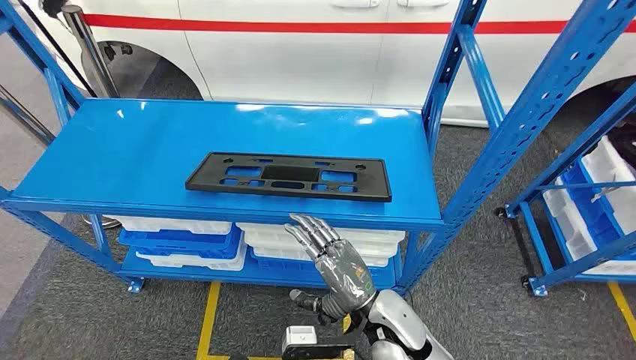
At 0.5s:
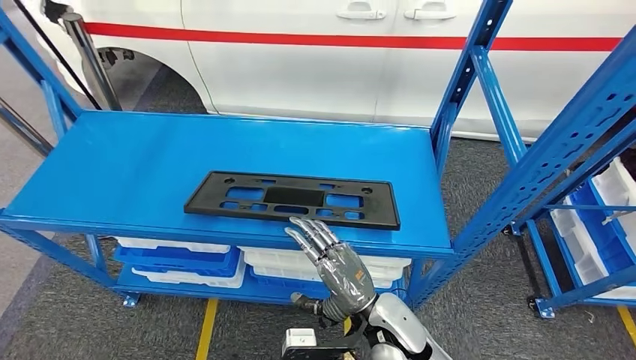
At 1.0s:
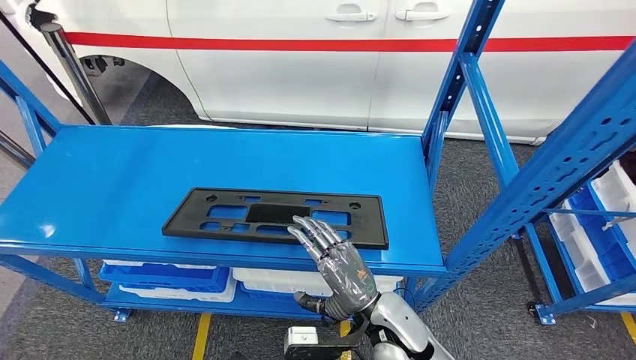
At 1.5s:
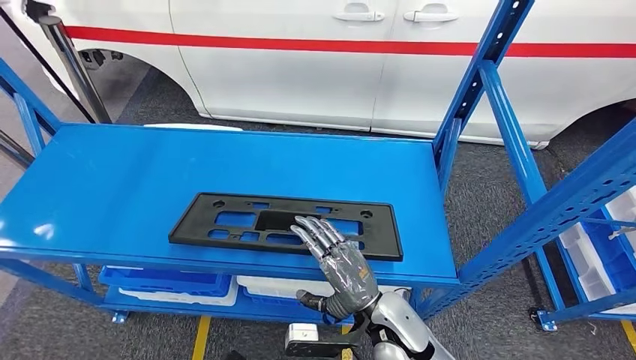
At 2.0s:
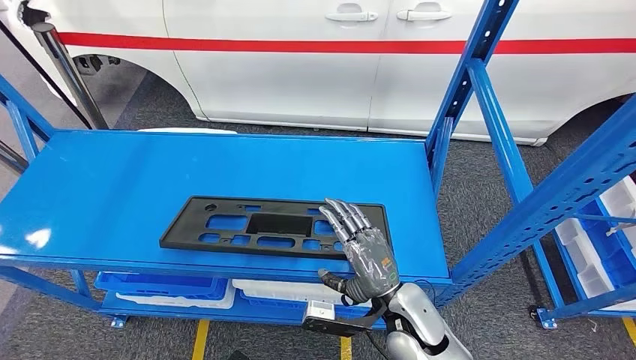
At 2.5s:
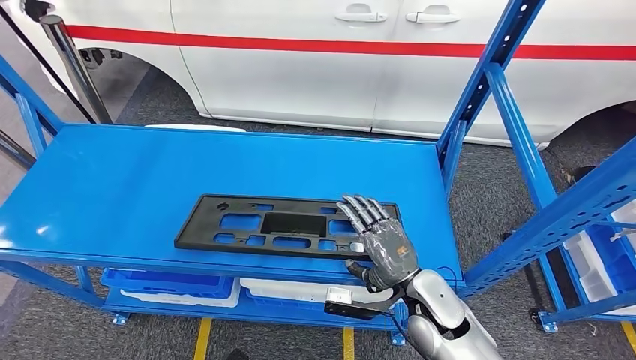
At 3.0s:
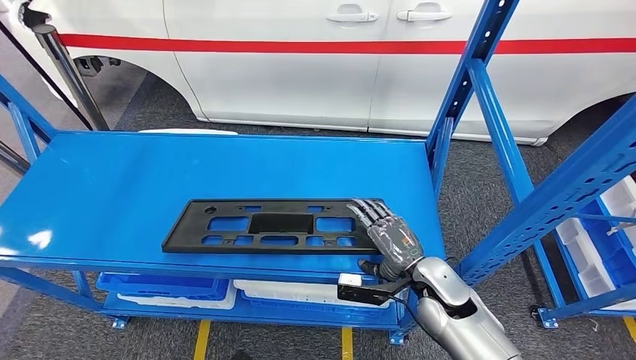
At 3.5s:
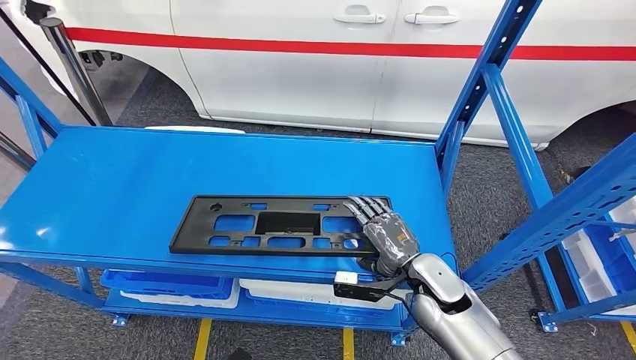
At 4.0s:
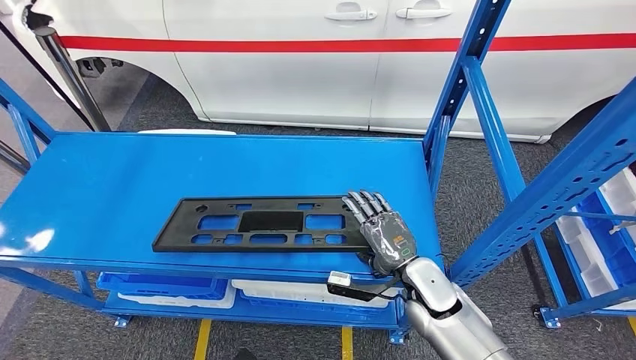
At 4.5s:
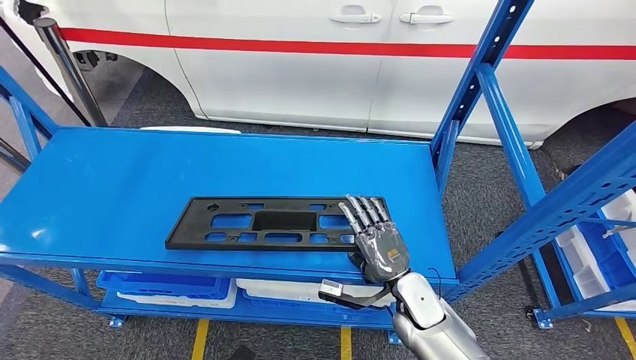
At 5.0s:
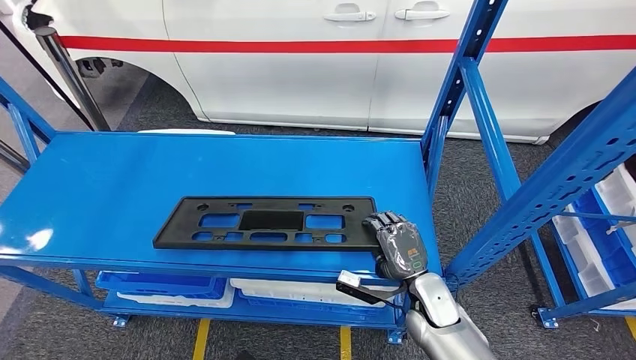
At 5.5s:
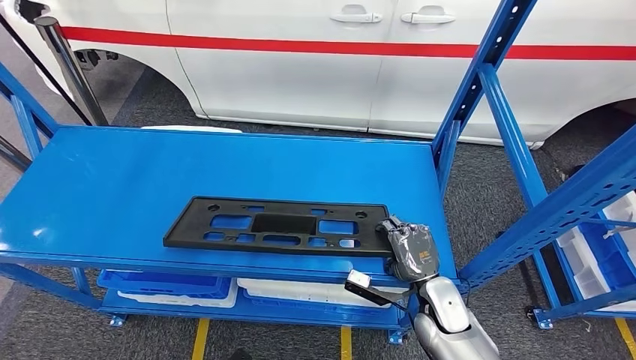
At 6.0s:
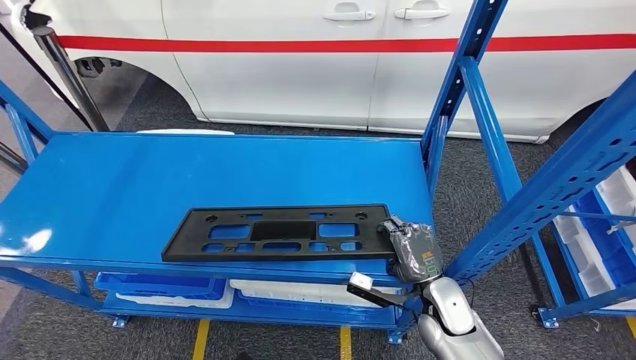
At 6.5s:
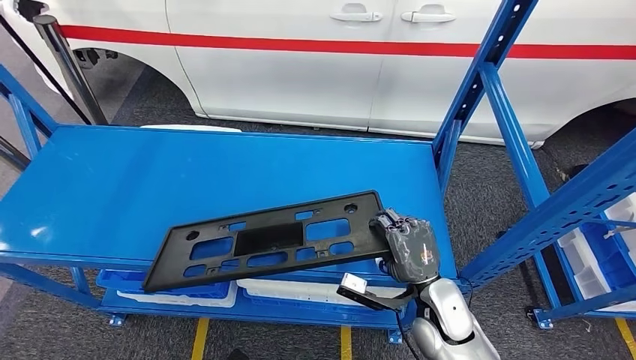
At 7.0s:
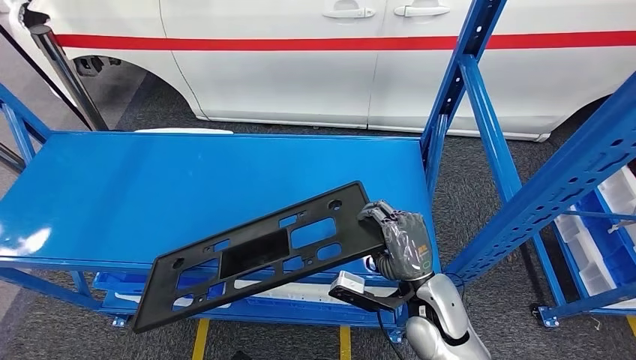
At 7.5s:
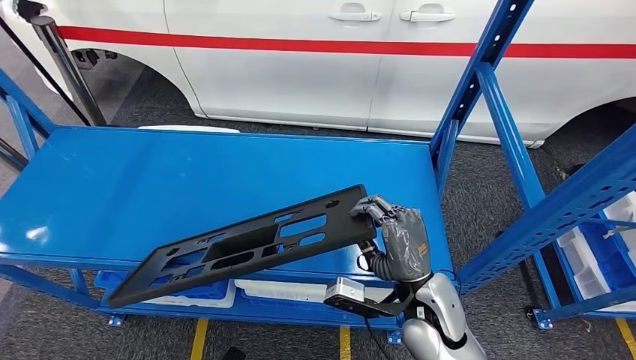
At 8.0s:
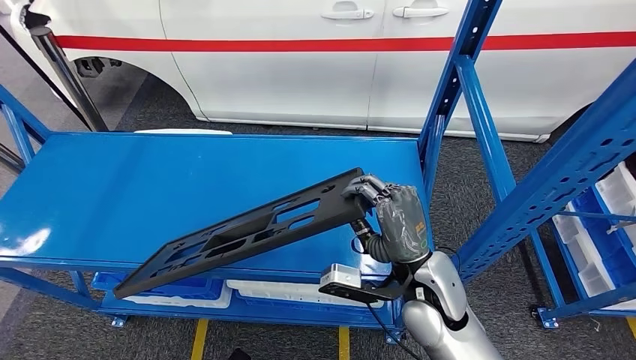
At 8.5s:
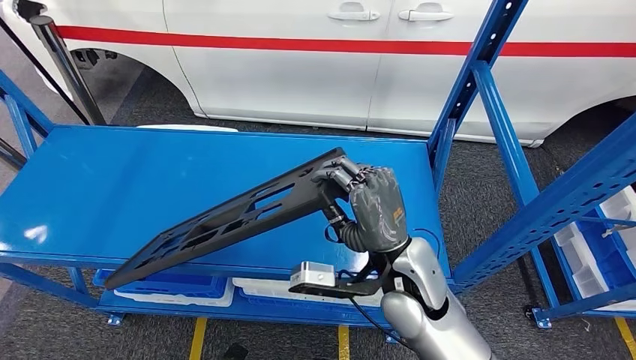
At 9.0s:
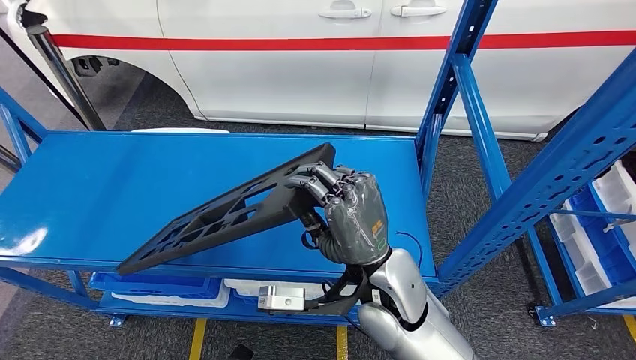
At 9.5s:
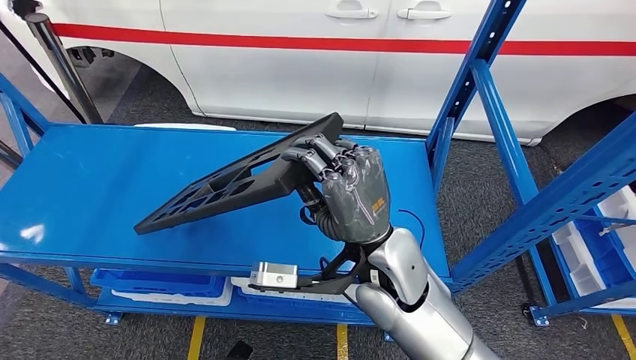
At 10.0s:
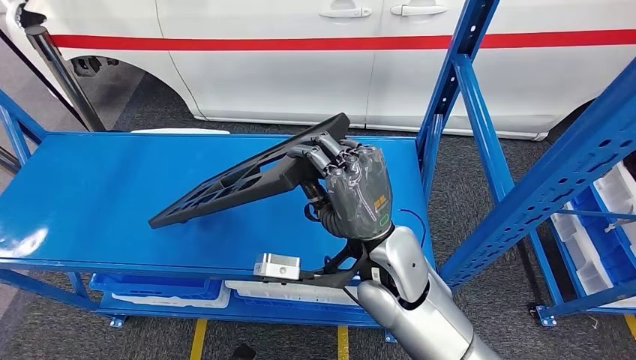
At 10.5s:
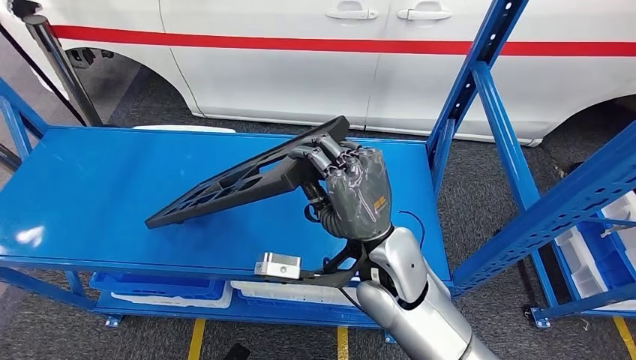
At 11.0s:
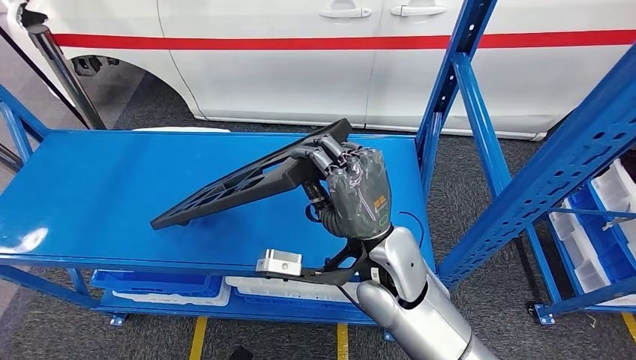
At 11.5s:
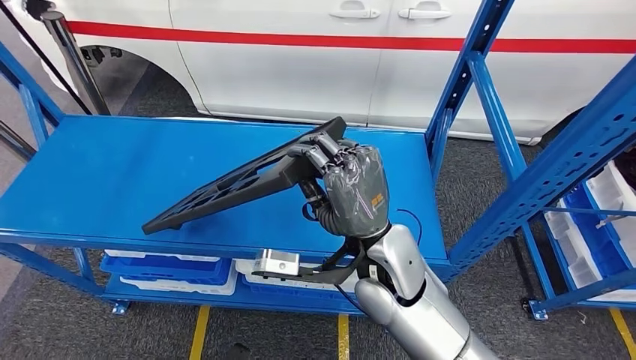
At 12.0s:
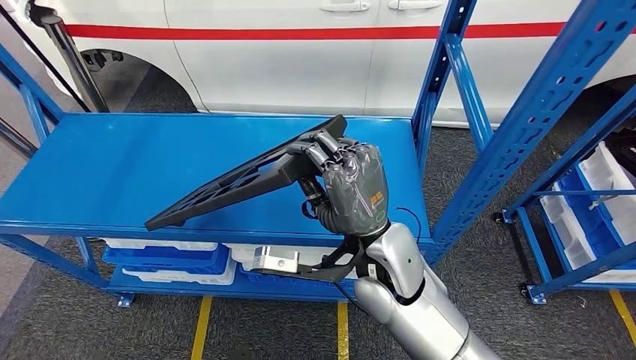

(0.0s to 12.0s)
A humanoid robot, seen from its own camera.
2.0s - 4.0s: The right hand goes roughly 5 cm forward.
4.0s - 6.0s: The right hand shifts by about 5 cm.
6.0s - 8.0s: The right hand is displaced upward and to the left by roughly 15 cm.

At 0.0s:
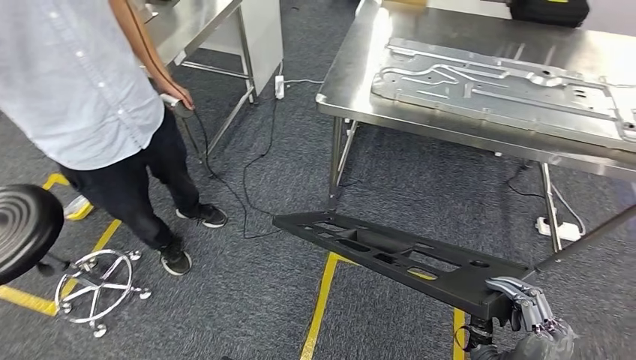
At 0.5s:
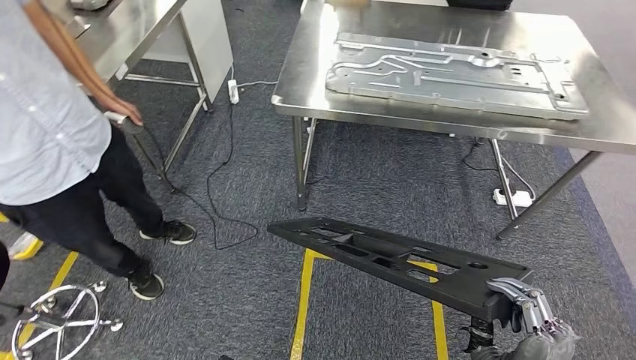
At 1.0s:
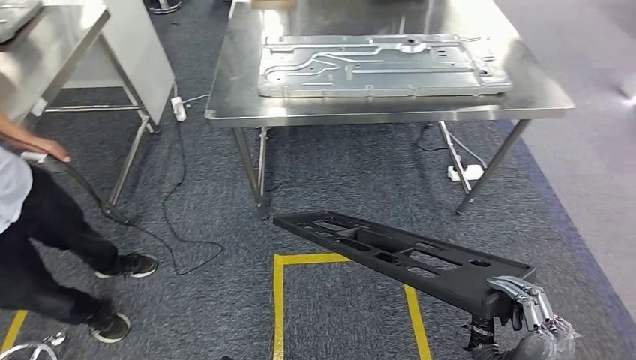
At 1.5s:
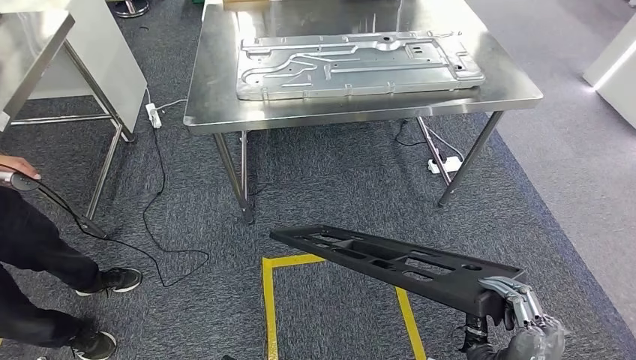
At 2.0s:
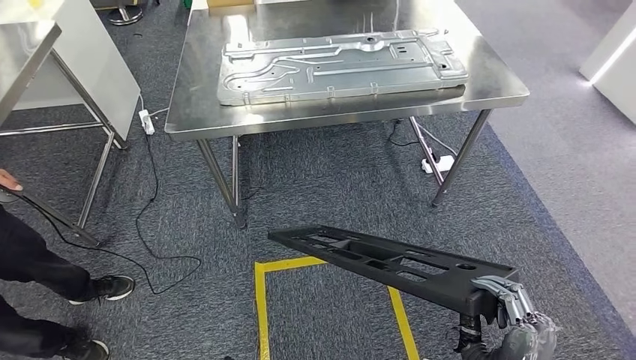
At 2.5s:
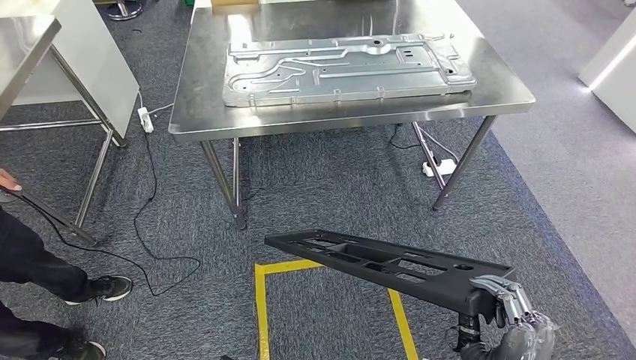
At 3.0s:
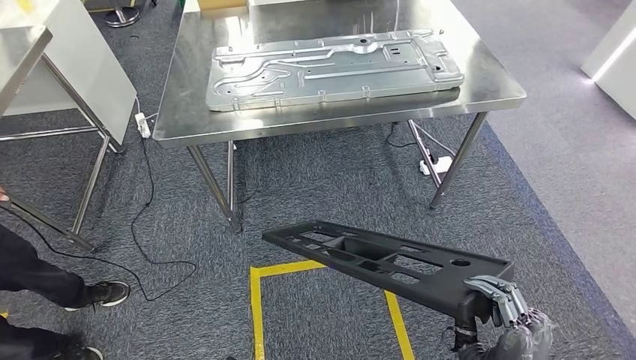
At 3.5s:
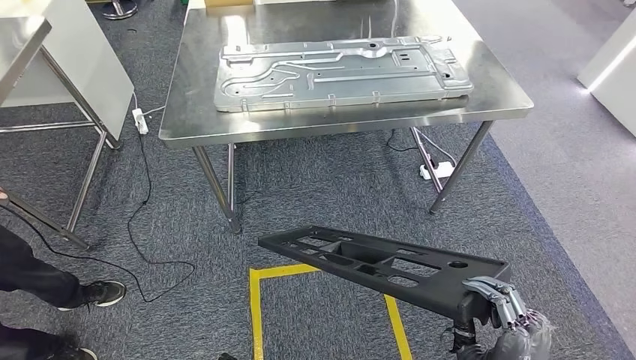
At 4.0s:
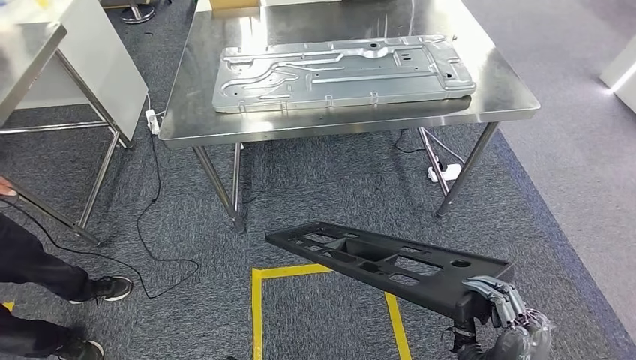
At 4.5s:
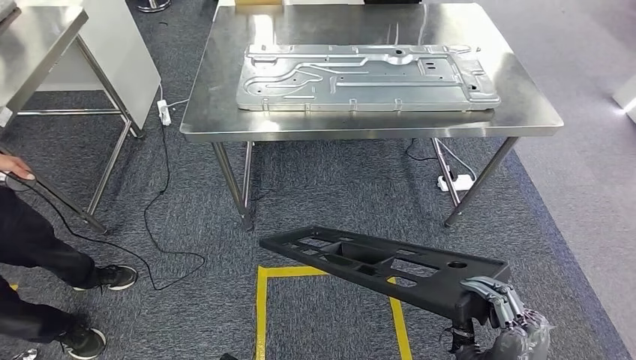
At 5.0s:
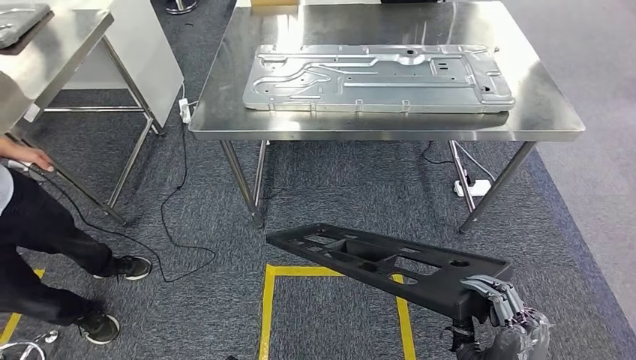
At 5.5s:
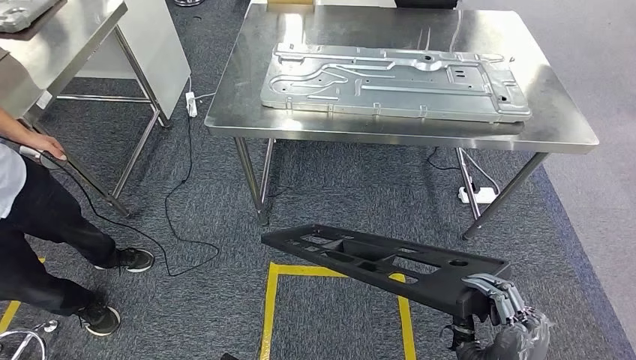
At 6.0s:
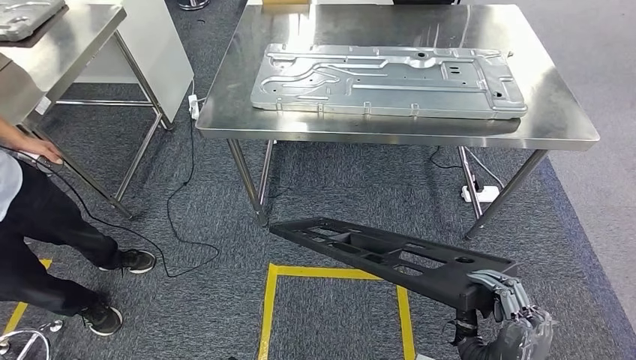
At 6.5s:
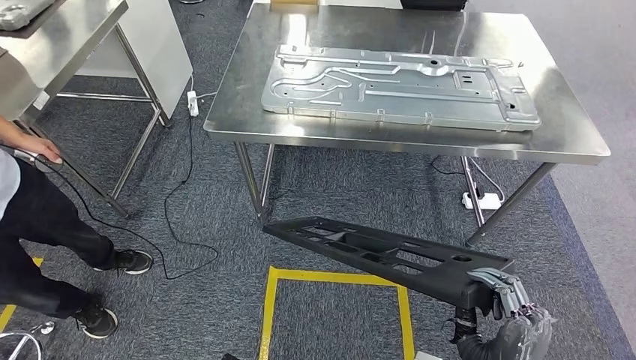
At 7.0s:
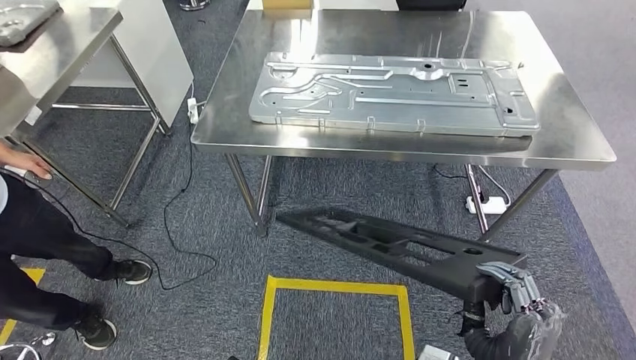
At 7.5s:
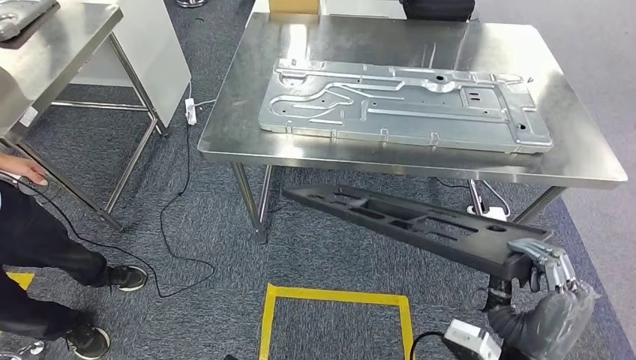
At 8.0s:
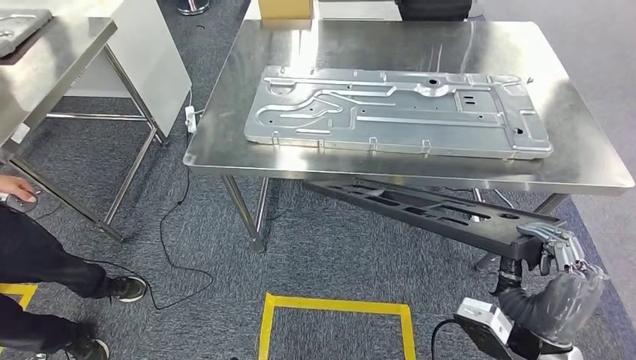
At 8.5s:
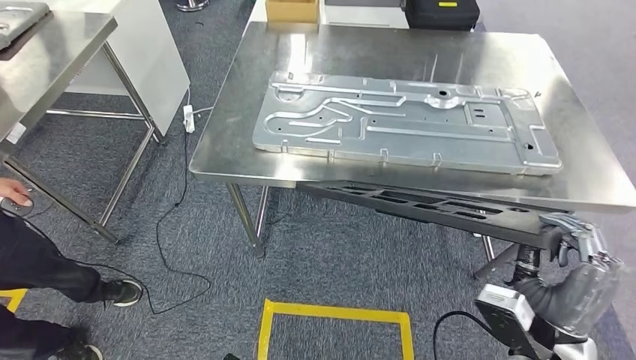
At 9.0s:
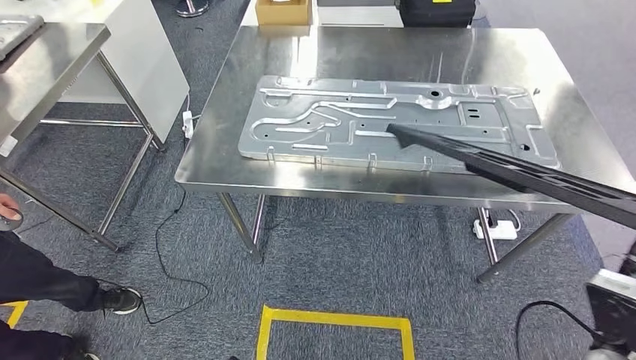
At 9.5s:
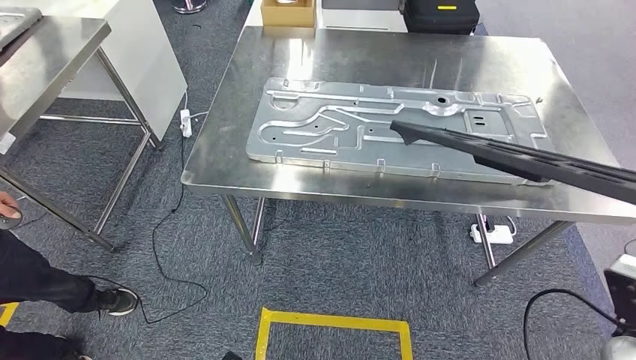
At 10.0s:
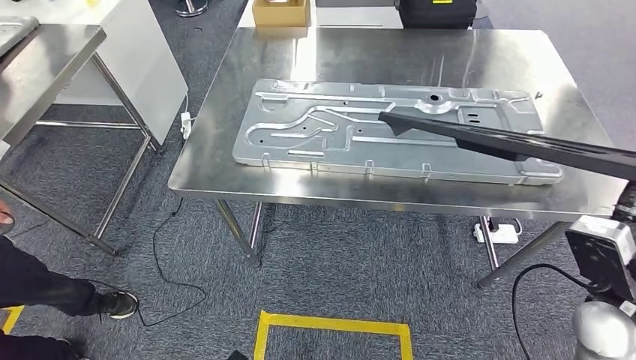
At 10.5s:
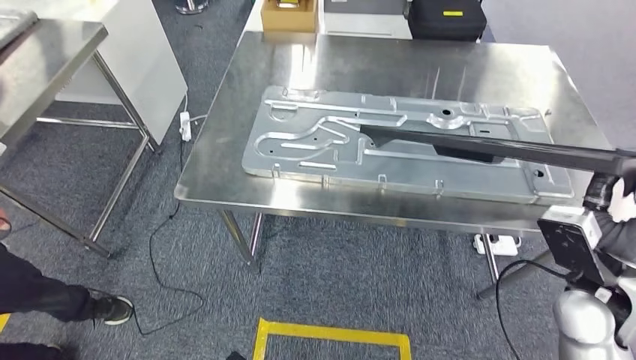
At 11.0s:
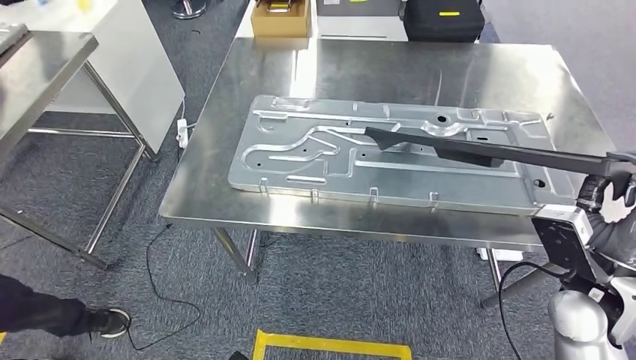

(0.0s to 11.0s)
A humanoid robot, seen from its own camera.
Step, 0.0s - 8.0s: Move the large material to the workbench.
